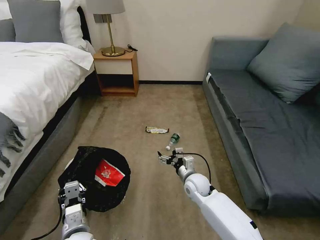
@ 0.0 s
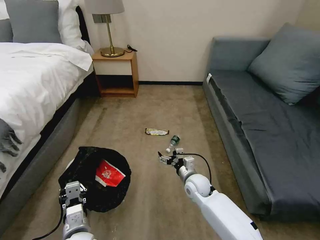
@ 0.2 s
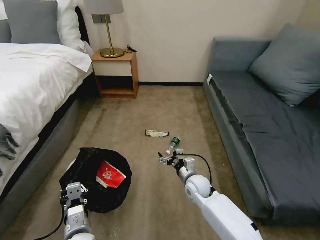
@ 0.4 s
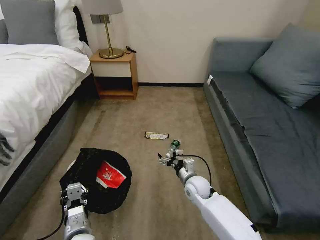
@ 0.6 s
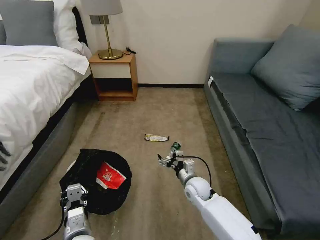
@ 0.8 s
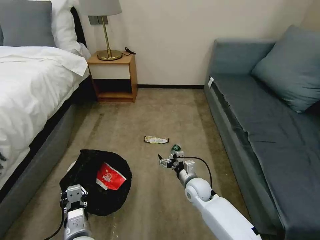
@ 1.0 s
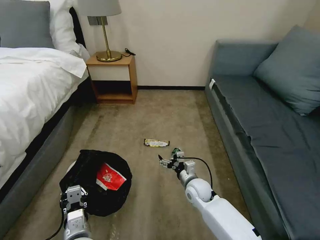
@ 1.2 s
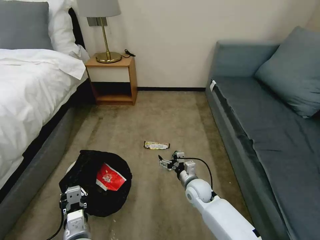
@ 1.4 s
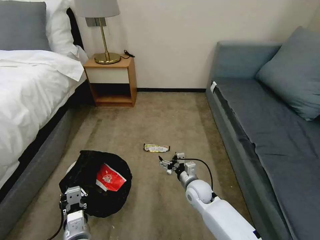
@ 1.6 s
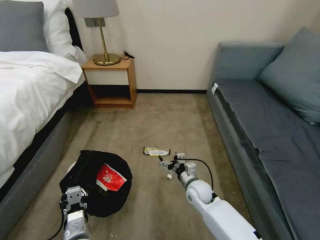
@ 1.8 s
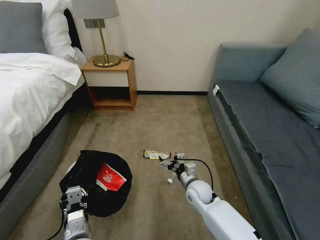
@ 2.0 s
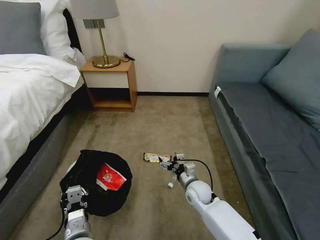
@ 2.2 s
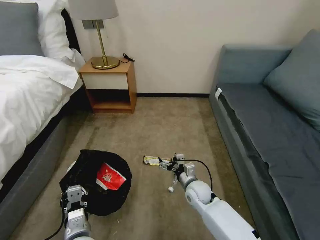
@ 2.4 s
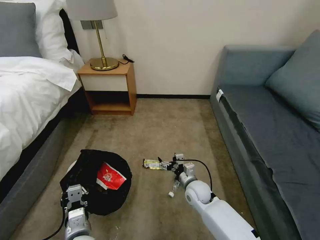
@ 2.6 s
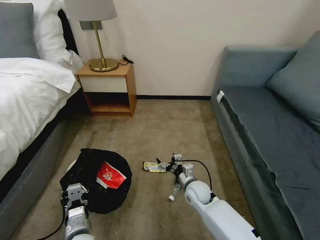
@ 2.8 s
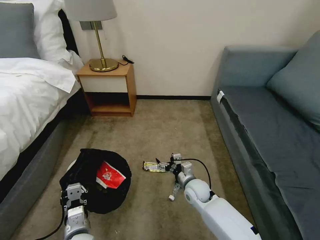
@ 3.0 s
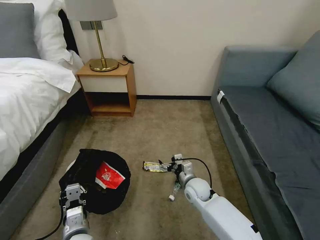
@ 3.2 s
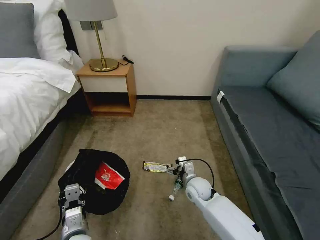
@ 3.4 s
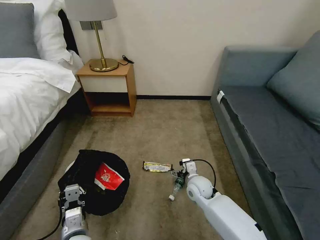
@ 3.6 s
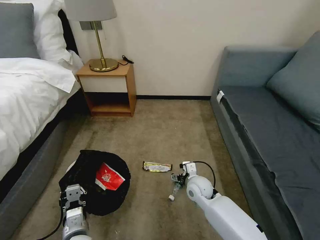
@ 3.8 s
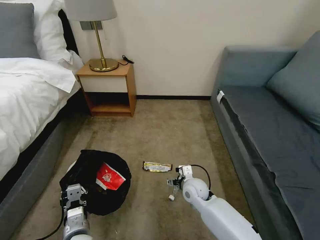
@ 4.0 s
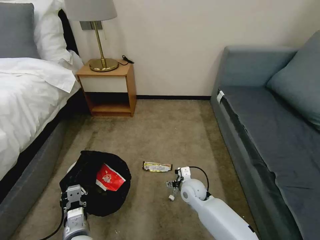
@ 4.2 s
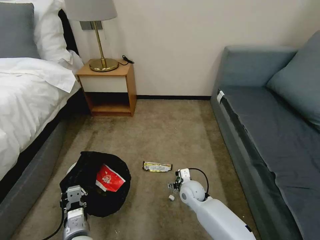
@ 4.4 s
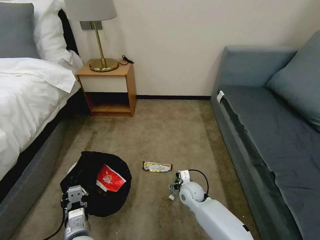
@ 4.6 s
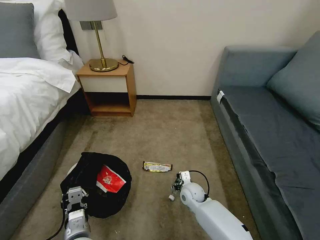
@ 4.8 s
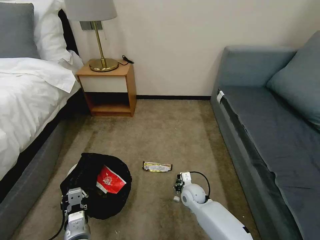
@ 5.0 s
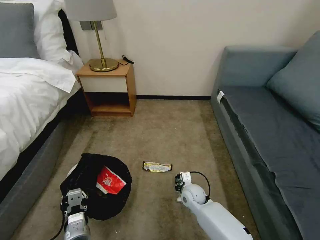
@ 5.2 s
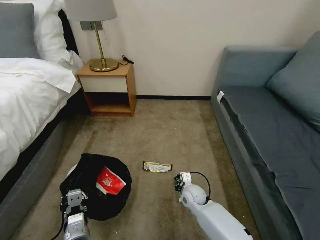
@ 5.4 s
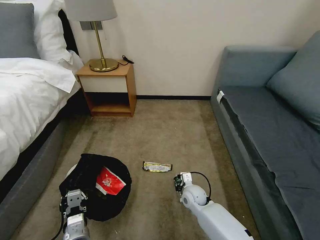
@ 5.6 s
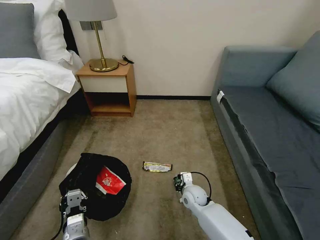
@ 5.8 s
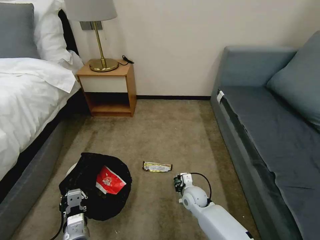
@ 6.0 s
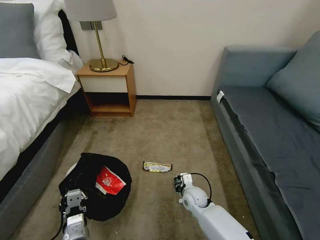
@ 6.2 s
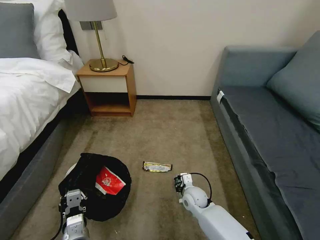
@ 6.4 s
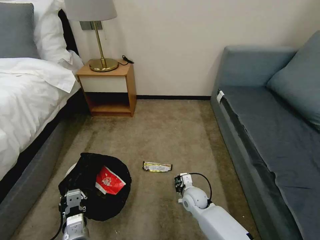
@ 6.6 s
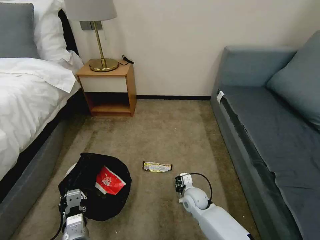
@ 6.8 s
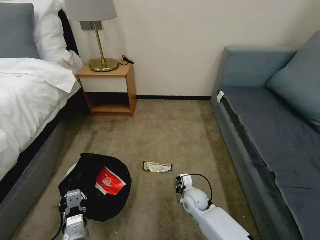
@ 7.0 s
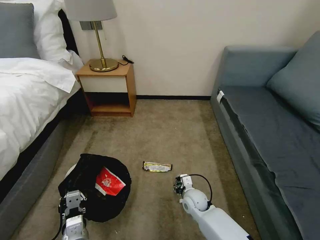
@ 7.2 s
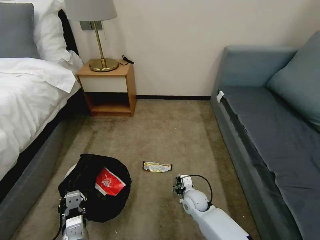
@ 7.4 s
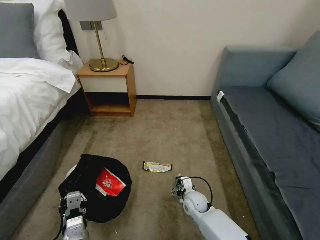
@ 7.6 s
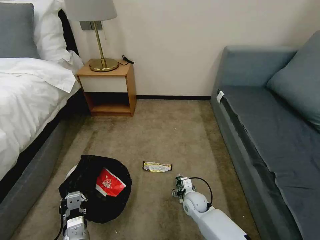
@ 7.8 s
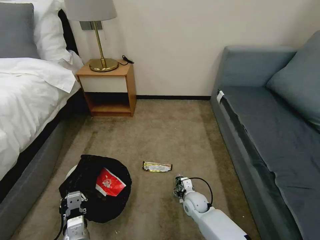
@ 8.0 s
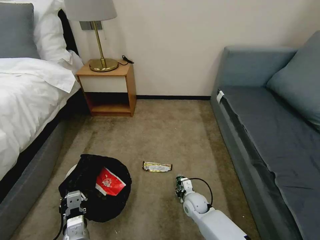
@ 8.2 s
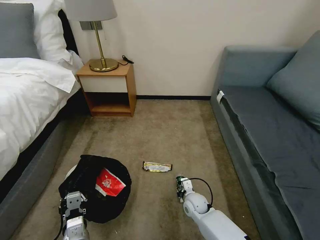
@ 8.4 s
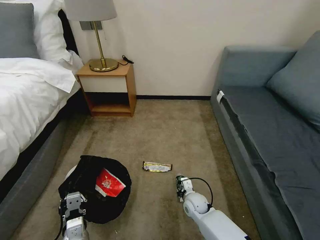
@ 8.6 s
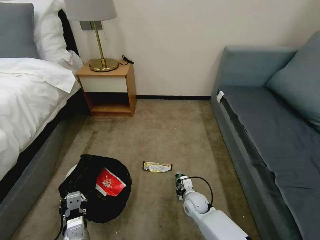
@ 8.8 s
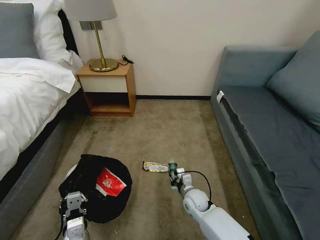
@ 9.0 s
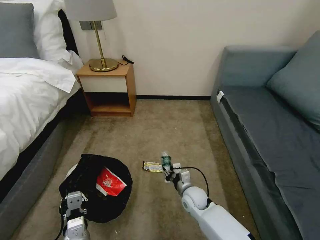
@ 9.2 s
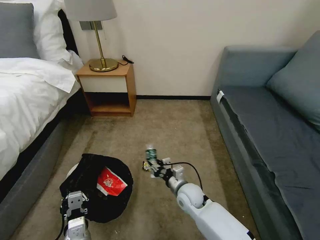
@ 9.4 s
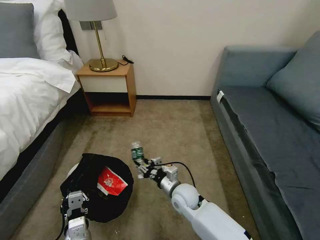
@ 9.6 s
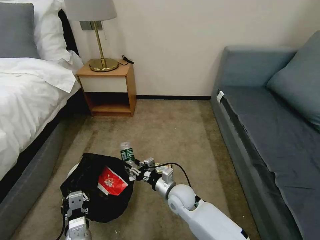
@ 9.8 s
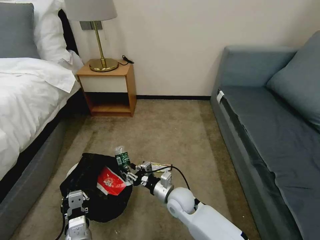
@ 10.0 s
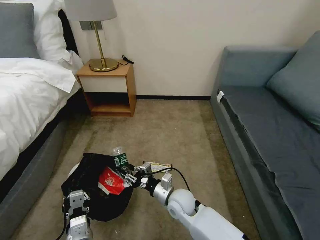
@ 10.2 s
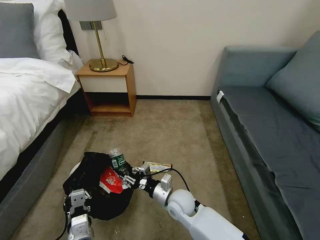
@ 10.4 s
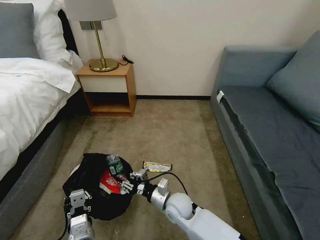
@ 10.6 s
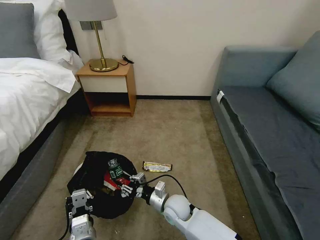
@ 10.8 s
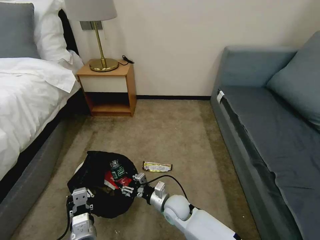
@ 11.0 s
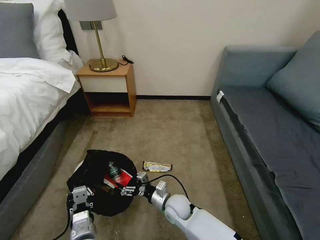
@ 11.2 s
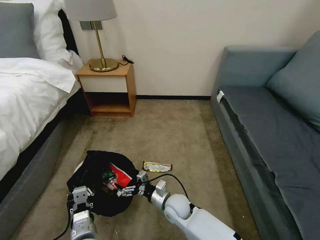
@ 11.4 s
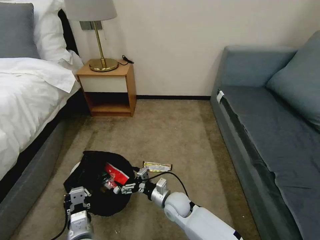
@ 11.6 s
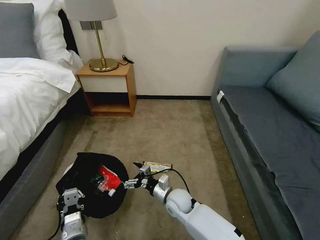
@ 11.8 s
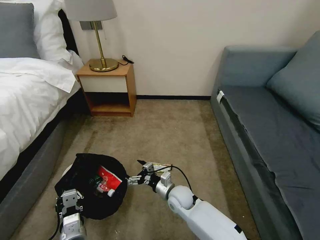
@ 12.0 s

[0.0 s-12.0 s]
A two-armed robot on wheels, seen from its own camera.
Task of the whole recording: Pick up the trash bin, then pick up the garbage on the floor and place it into the trash bin.
4.4 to 6.0 s: The right gripper closes its fingers.
6.0 to 7.6 s: The right gripper opens its fingers.
7.6 to 9.0 s: The right gripper closes.
9.0 to 10.4 s: The right gripper heads upward and to the left, covering approximately 10 cm.
10.4 to 12.0 s: The right gripper moves roughly 5 cm, and opens up.

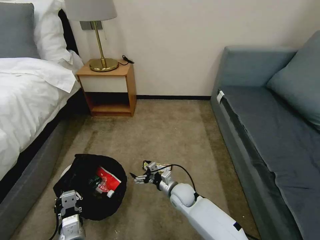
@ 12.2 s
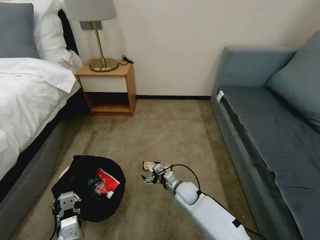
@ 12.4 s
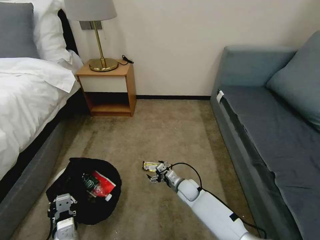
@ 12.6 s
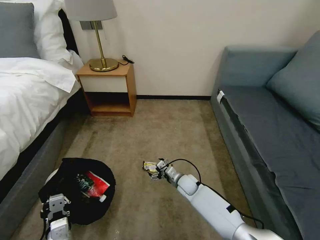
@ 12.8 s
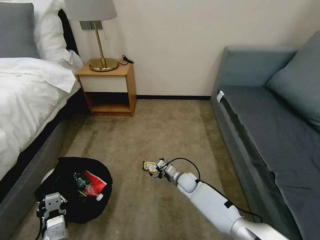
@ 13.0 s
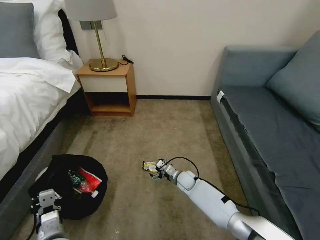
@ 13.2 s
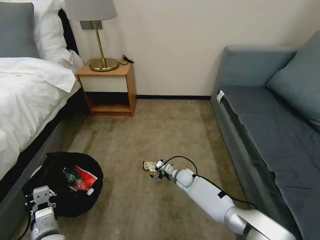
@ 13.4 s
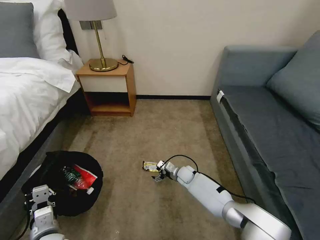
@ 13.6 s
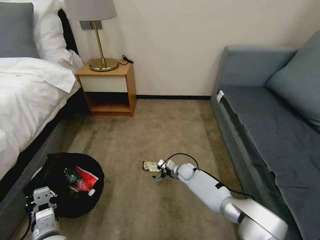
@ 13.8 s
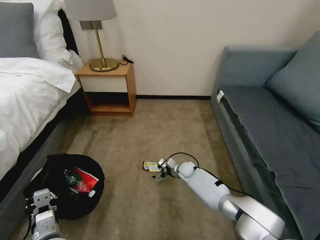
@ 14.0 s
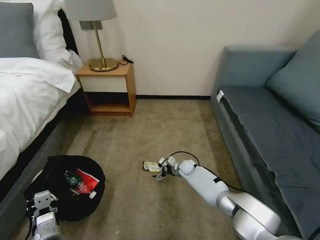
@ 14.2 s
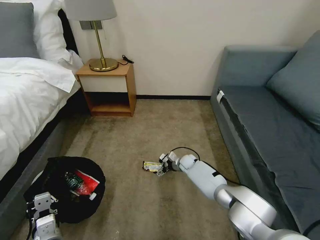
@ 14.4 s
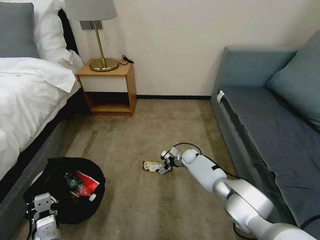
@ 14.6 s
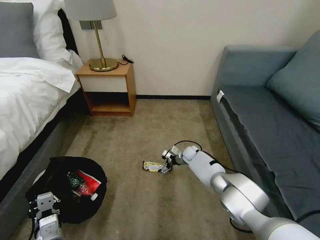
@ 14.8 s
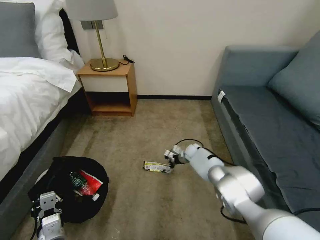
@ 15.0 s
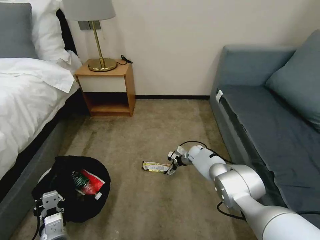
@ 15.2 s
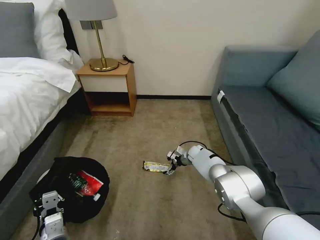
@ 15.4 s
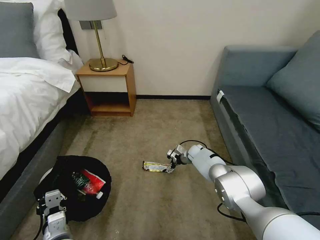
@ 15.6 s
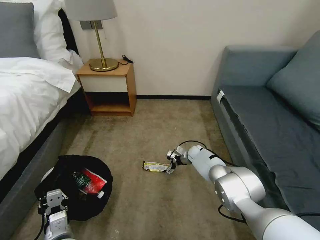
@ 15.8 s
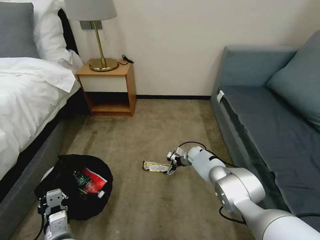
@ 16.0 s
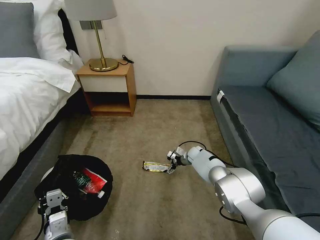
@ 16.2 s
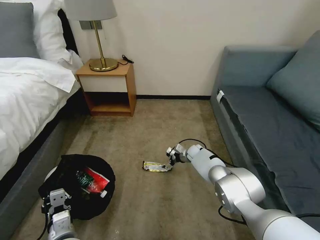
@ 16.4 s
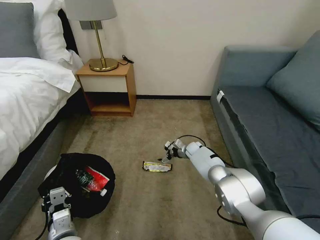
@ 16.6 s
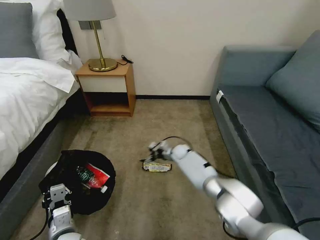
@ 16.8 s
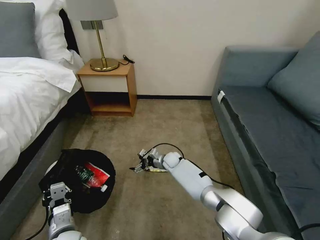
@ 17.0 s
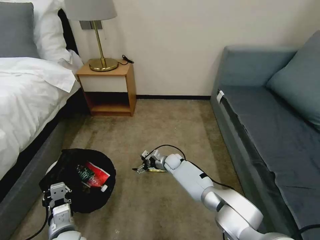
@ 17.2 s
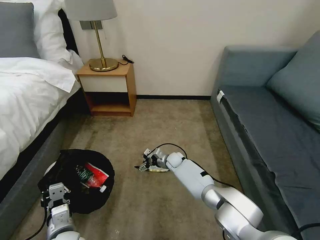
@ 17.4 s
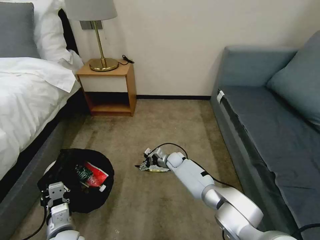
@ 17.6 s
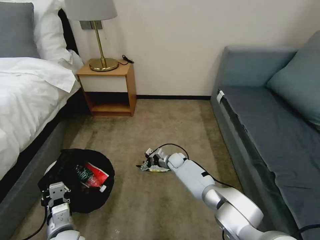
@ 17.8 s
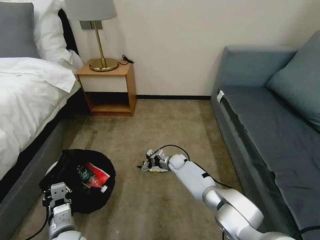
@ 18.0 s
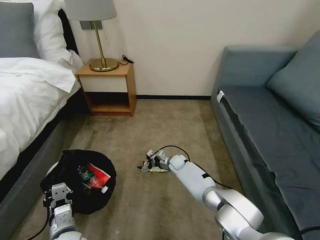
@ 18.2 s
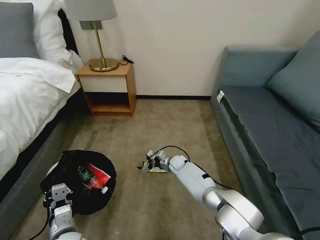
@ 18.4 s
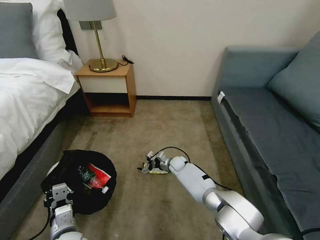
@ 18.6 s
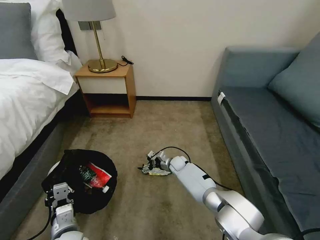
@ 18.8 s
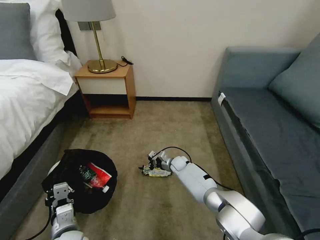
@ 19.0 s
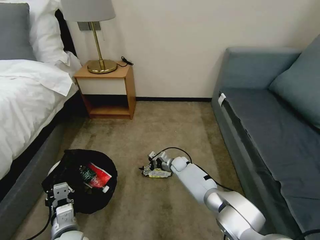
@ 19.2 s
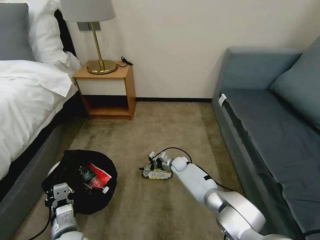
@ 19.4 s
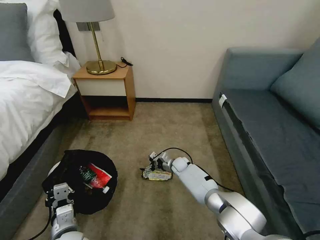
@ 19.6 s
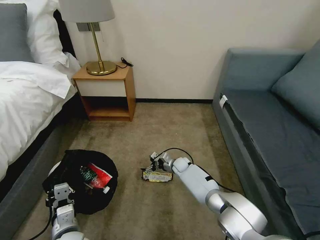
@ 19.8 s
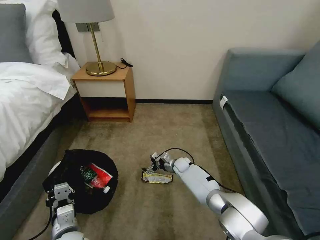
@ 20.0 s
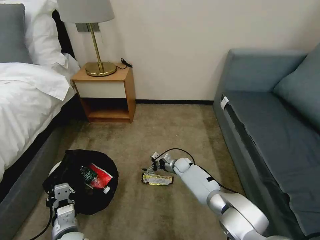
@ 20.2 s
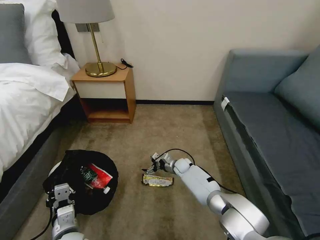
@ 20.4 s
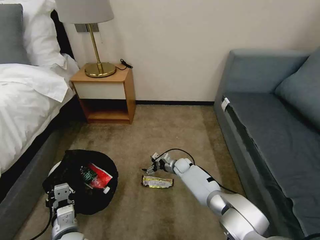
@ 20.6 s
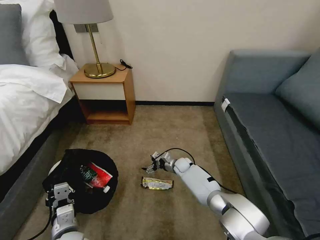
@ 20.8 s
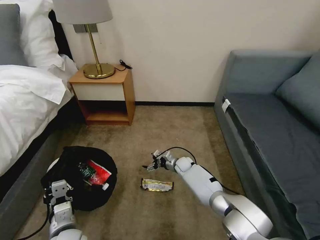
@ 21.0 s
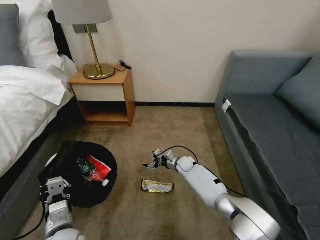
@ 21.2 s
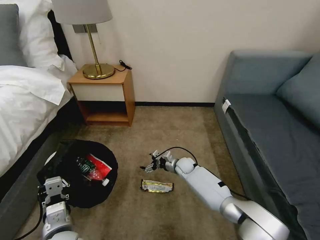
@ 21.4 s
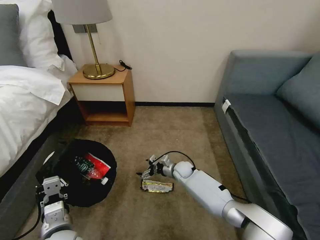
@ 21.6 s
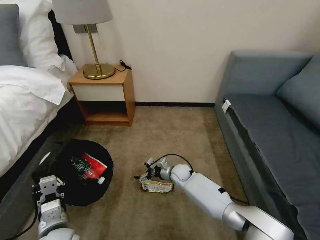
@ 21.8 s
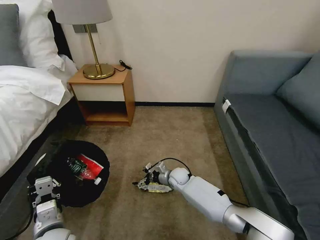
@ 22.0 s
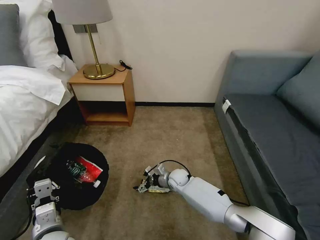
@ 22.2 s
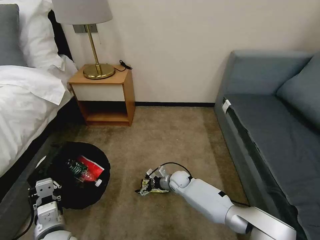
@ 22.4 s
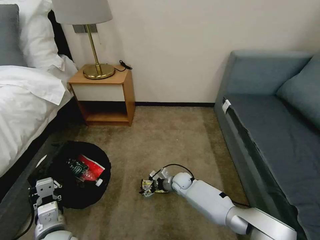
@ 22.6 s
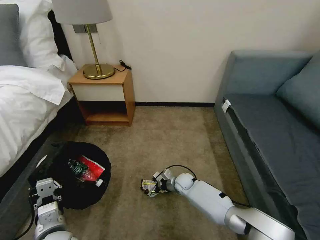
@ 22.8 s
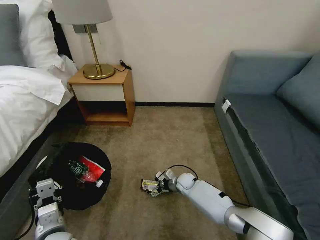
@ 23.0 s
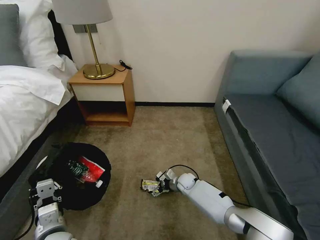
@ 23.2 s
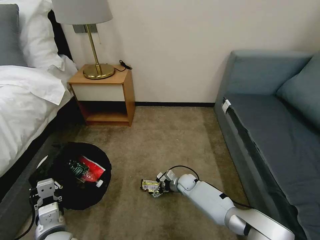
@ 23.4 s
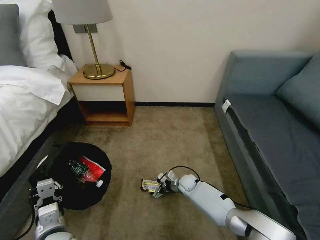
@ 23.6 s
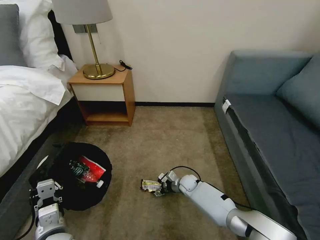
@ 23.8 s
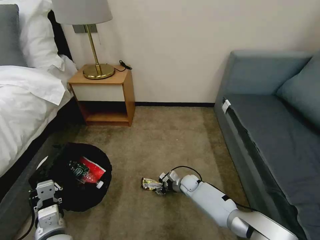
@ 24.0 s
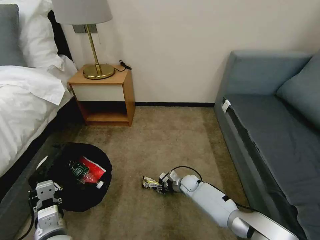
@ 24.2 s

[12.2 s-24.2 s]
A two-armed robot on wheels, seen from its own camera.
Task of the whole recording: Pick up the trash bin, then pick up the garbage on the floor and place it into the trash bin.
12.2 to 13.8 s: The right gripper goes about 15 cm forward and downward. The left gripper shifts about 5 cm to the left.
13.8 to 15.2 s: The right gripper moves forward and to the right, approximately 10 cm.
15.2 to 16.6 s: The grippers make only small movements.
16.6 to 18.2 s: The right gripper goes about 10 cm to the left and backward.
18.2 to 21.2 s: There are only small adjustments of the grippers.
21.2 to 22.6 s: The right gripper goes approximately 10 cm backward.
22.6 to 24.2 s: The right gripper closes its fingers.
